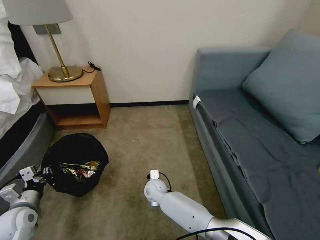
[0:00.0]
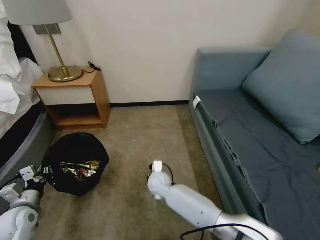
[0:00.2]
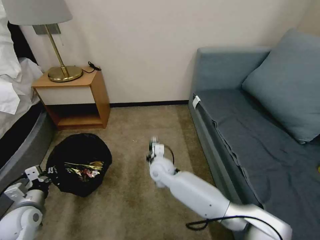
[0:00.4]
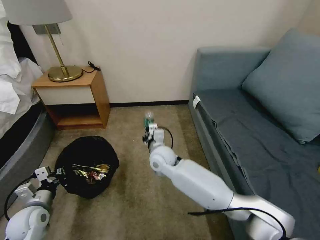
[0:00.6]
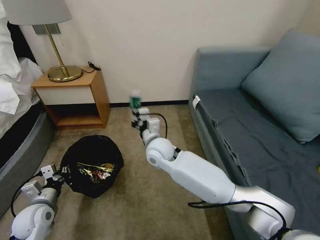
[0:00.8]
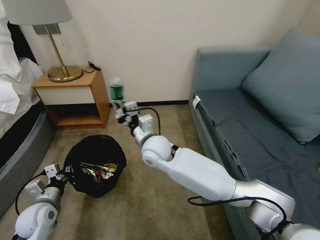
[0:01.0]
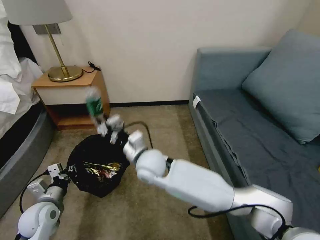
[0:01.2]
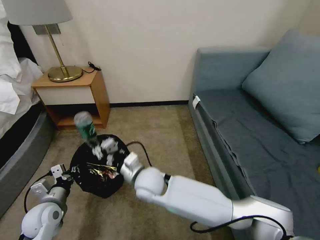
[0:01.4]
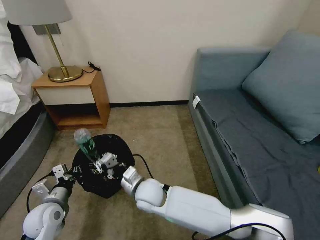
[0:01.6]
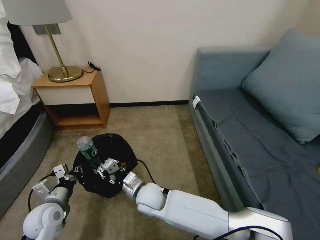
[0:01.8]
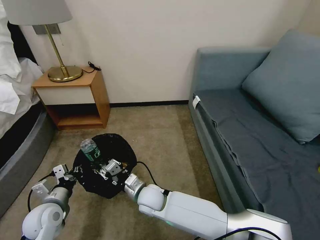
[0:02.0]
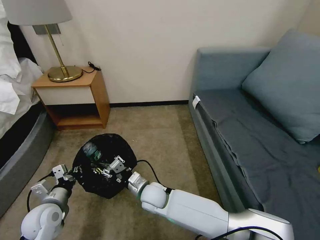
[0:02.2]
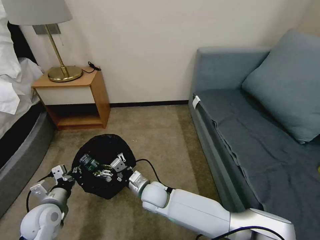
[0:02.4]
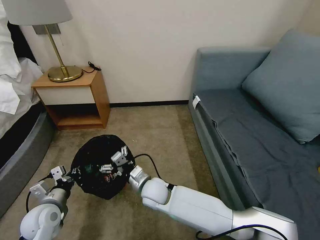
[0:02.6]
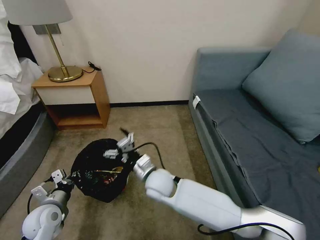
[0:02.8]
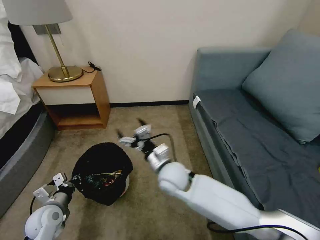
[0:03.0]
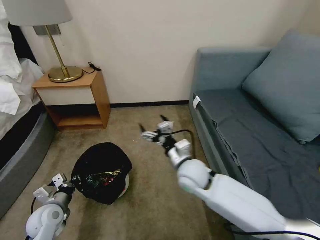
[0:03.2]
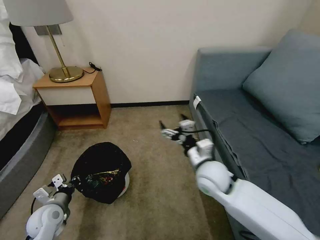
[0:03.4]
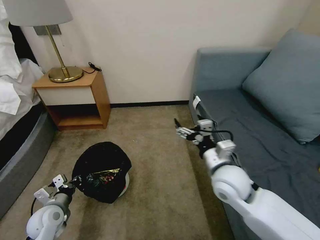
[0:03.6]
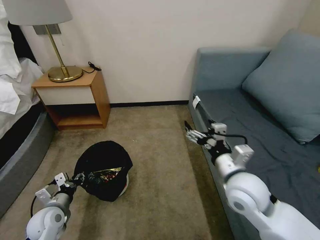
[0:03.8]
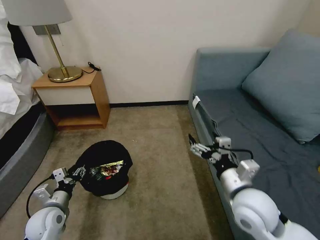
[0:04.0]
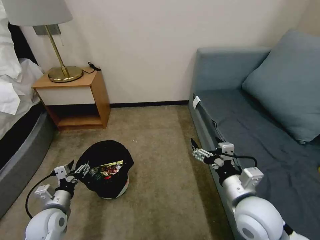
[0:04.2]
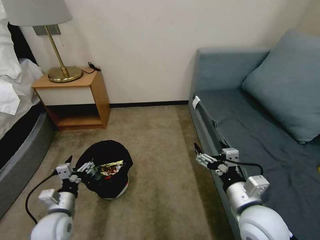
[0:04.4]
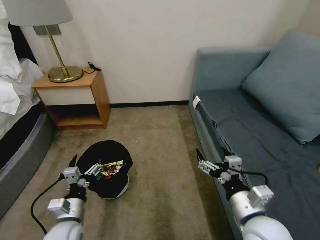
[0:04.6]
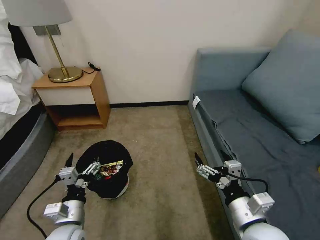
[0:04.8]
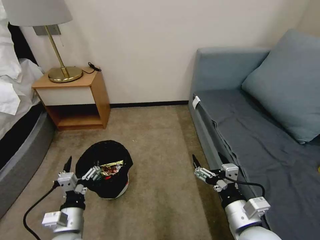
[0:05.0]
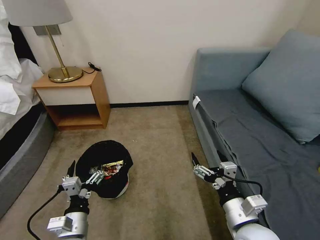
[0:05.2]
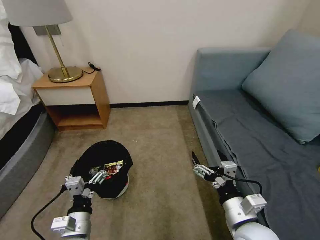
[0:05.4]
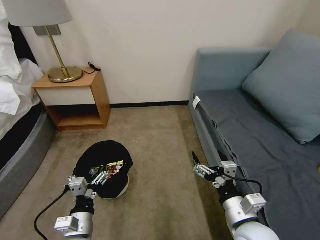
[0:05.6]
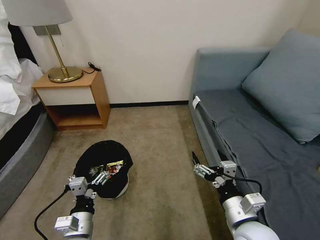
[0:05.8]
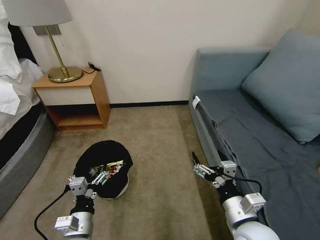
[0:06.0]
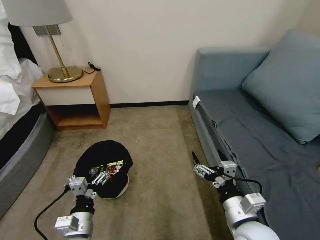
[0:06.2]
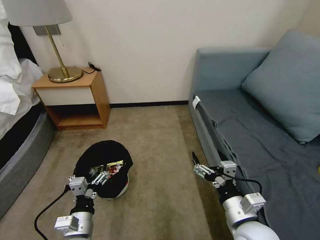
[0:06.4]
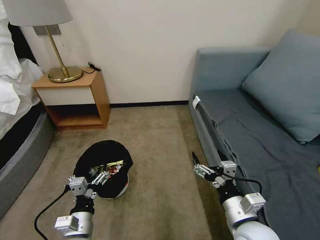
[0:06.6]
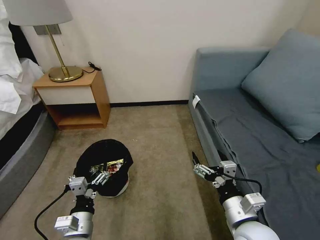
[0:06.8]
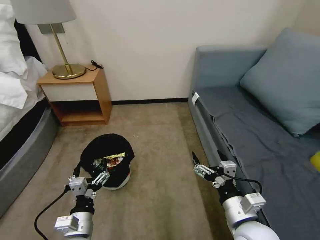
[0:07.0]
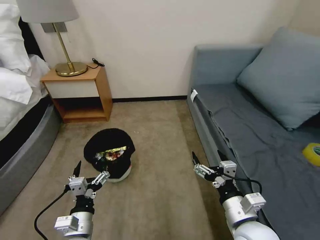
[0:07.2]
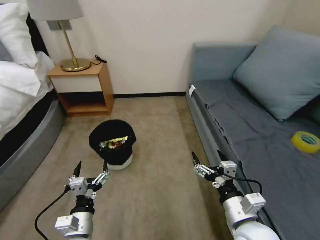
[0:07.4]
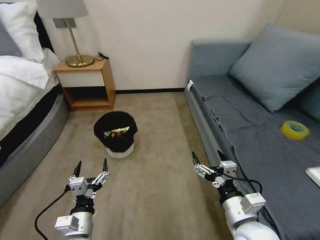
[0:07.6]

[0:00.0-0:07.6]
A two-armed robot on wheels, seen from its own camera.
Task of the whole recording: Pick up the trash bin, then pick up the garbage on the floor and place it into the trash bin.
0:00.0 to 0:01.6: The left gripper is displaced to the right by approximately 10 cm. The right gripper heads upward and backward, covering about 15 cm.
0:01.6 to 0:03.0: The right gripper heads to the right and upward, covering about 10 cm, and opens up.
0:03.0 to 0:04.6: The right gripper shifts about 25 cm to the right and backward. Meanwhile the left gripper shifts about 10 cm to the right and backward, and opens its fingers.
0:04.6 to 0:06.0: The left gripper ends up approximately 5 cm from where it was.

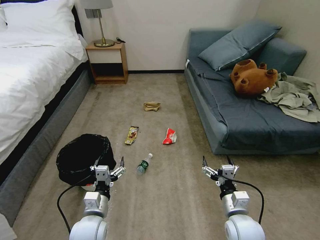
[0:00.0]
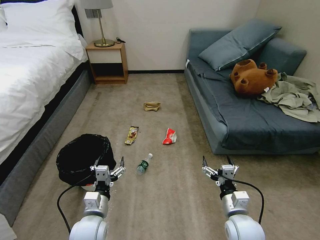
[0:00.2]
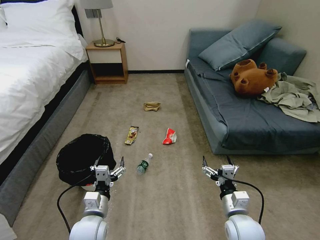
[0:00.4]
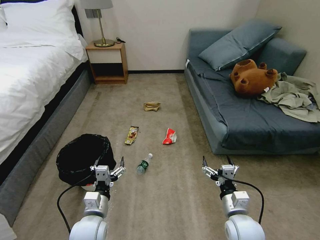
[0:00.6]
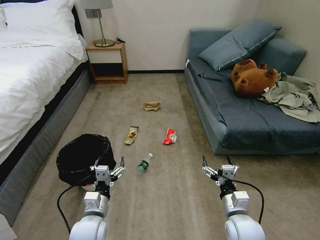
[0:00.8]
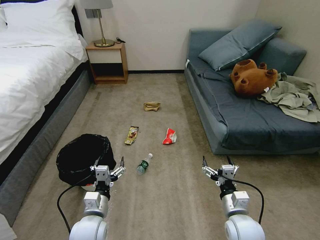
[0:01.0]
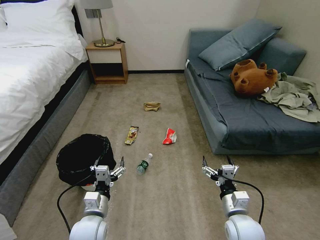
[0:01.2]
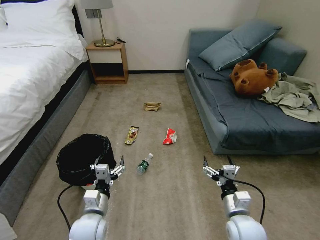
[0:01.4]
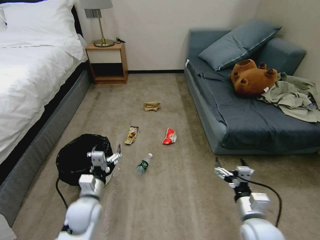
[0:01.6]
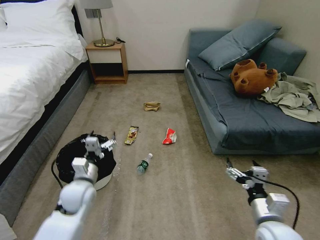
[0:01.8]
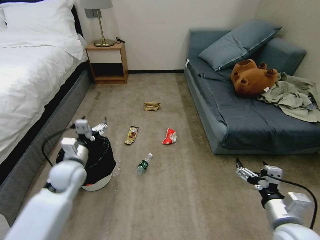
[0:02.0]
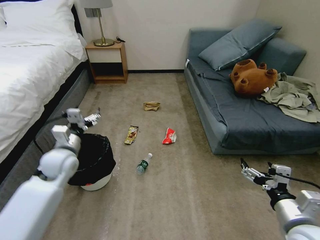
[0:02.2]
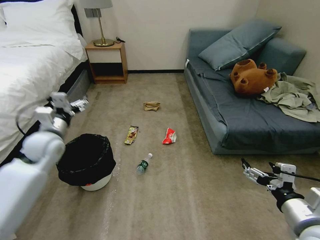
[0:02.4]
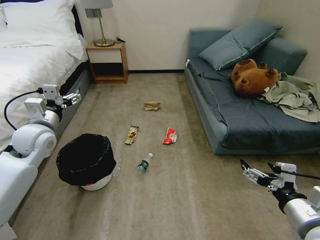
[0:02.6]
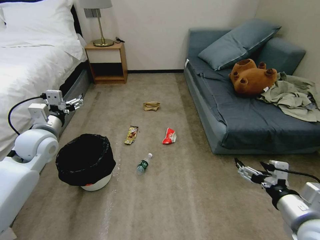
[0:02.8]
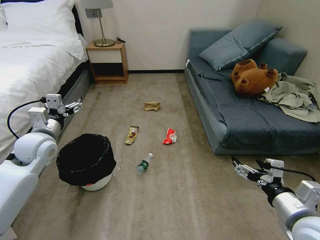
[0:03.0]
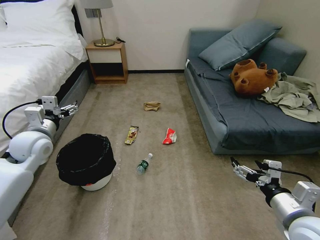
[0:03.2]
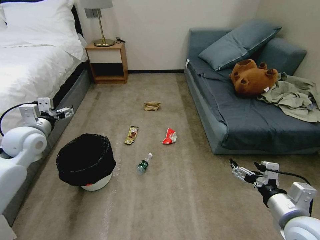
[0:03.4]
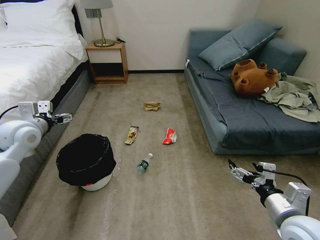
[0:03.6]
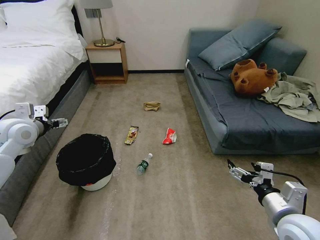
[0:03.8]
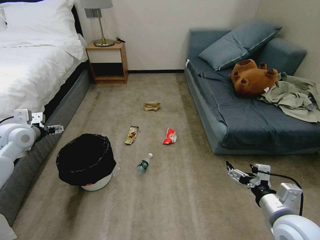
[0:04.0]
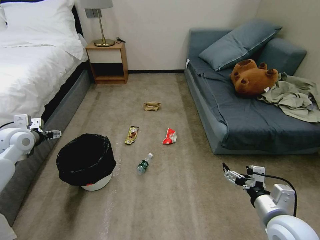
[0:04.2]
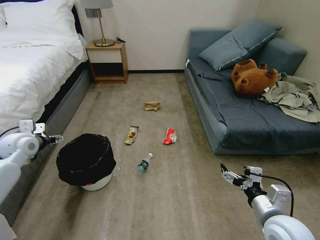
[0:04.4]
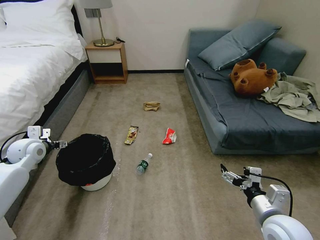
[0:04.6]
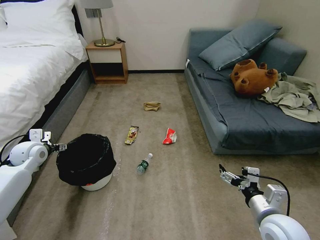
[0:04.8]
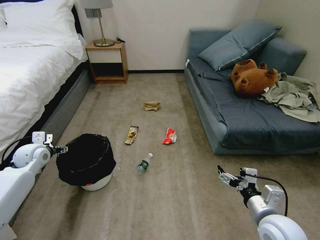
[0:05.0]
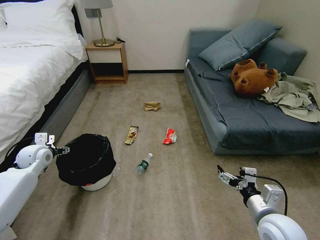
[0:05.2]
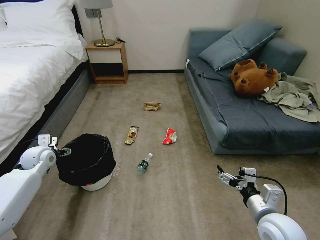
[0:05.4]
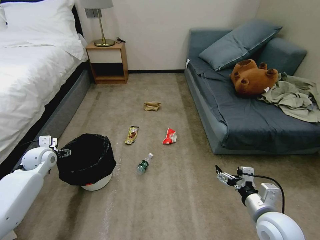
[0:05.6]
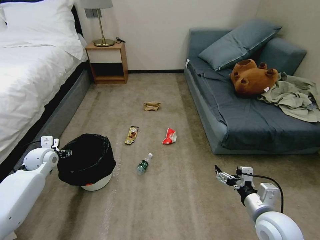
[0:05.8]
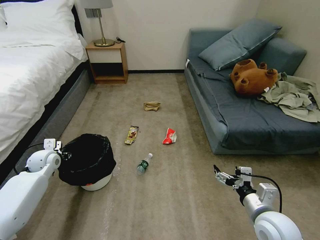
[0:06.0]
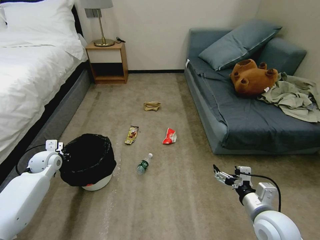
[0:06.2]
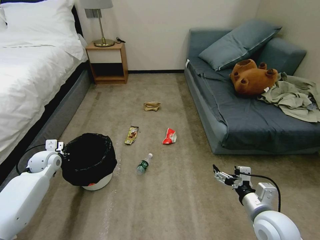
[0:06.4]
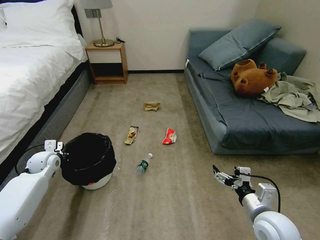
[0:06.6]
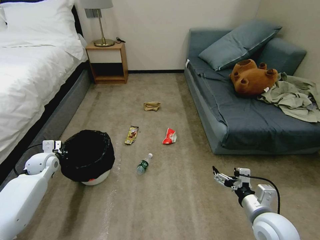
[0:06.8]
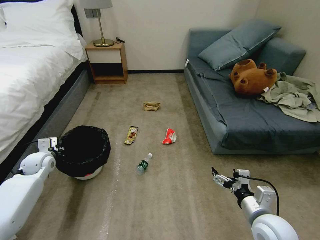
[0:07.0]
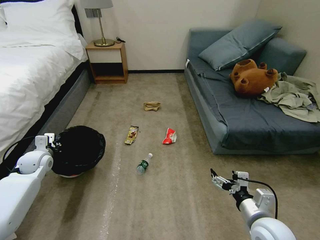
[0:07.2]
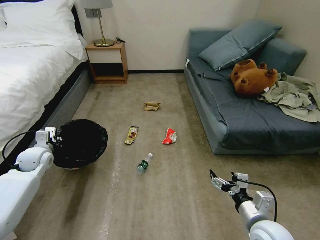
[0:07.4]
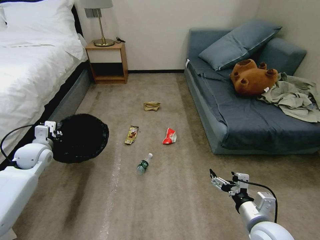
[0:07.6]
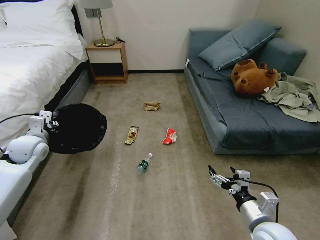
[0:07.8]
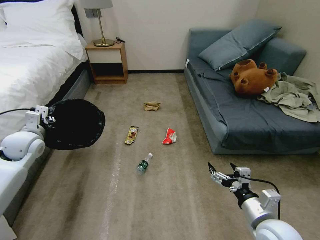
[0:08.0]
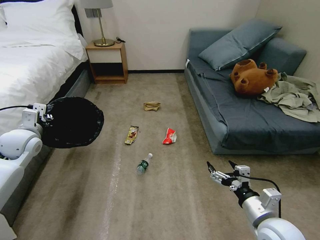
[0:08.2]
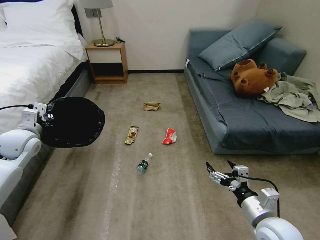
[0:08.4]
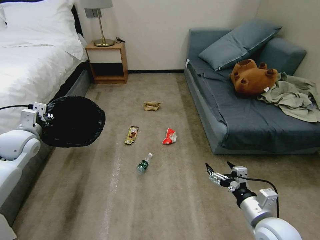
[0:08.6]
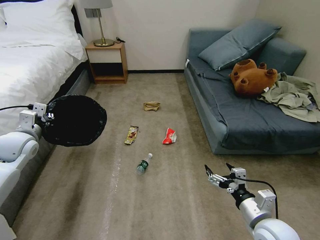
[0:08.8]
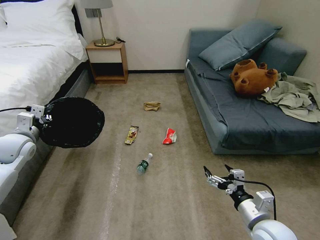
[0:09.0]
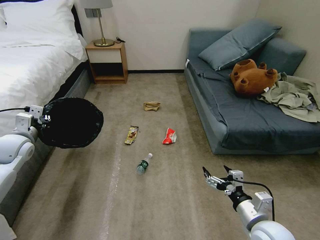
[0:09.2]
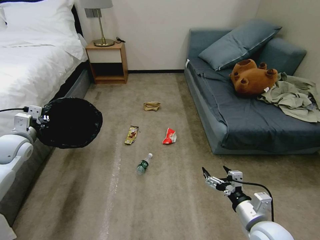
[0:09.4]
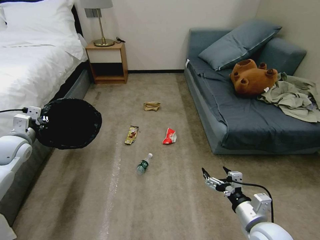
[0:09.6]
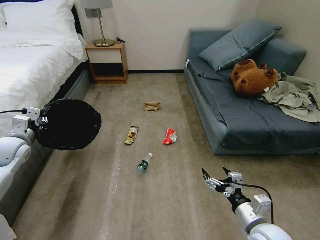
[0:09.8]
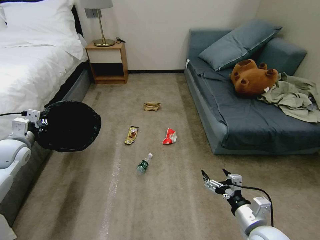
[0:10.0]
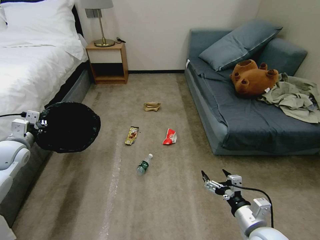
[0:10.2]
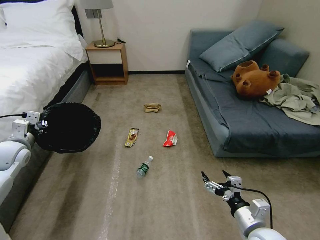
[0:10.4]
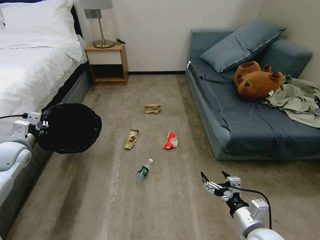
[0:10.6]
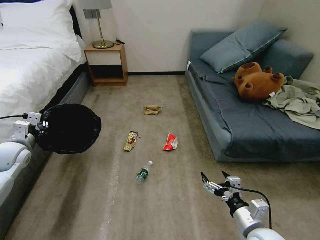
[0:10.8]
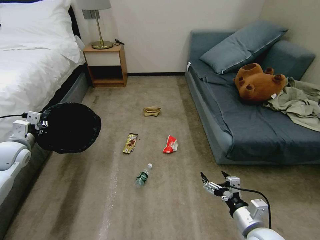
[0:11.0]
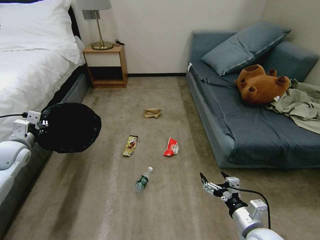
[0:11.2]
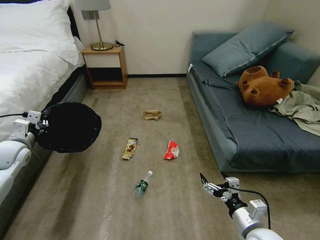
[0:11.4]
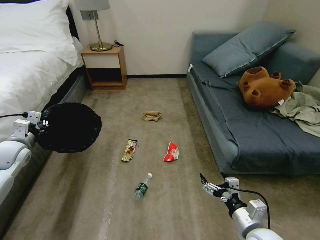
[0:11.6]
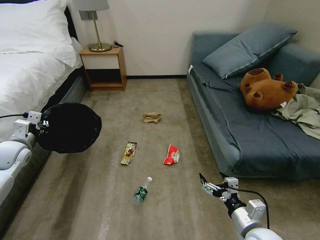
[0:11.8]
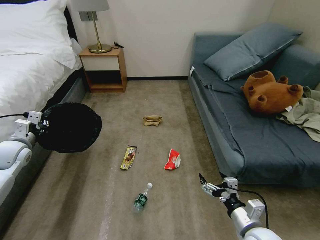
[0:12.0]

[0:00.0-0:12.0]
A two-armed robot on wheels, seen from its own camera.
Task of the whole recording: Pick up the trash bin, then pick up the garbage on the floor and place it into the trash bin.
0:01.6 to 0:03.0: The left gripper shifts roughly 25 cm upward, to the left and forward; the right gripper is displaced upward and to the right by roughly 15 cm.
0:03.0 to 0:04.4: The right gripper travels downward by about 5 cm, while the left gripper shifts approximately 10 cm to the left.
0:04.4 to 0:06.0: The left gripper travels downward by approximately 10 cm, and closes up.
0:06.0 to 0:07.6: The left gripper travels upward by about 5 cm, and closes up.
0:07.6 to 0:09.0: The left gripper shifts about 5 cm upward.
0:09.0 to 0:10.4: The grippers make only small movements.

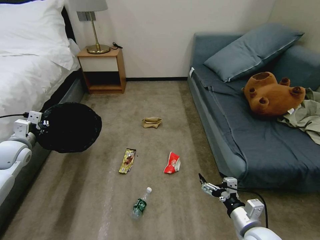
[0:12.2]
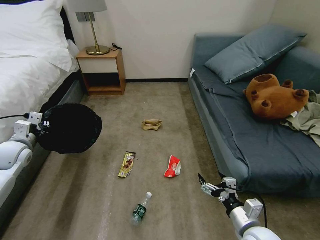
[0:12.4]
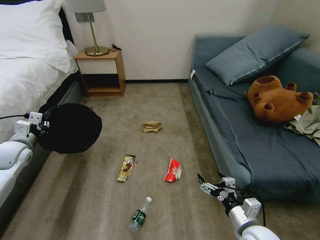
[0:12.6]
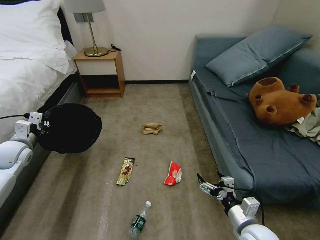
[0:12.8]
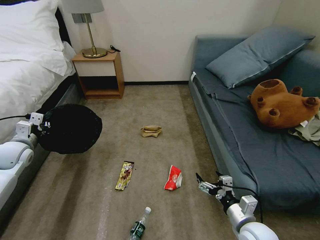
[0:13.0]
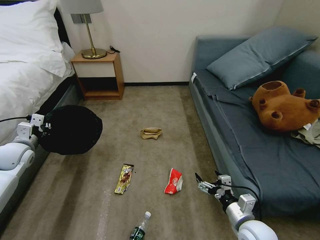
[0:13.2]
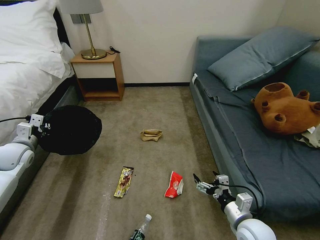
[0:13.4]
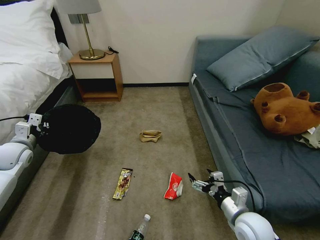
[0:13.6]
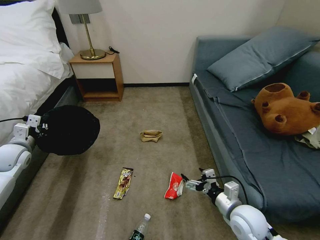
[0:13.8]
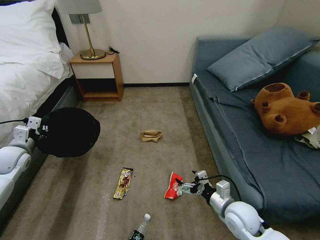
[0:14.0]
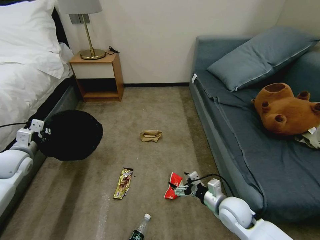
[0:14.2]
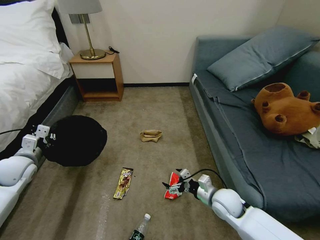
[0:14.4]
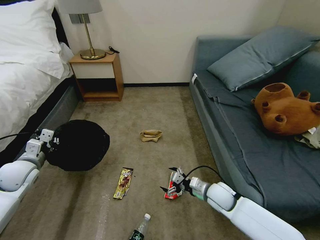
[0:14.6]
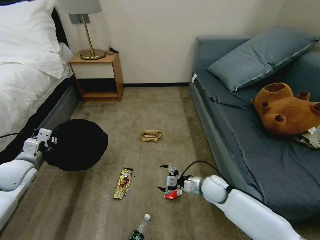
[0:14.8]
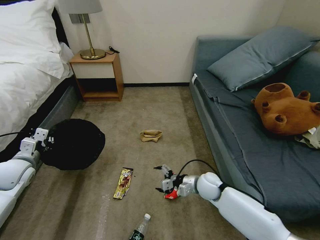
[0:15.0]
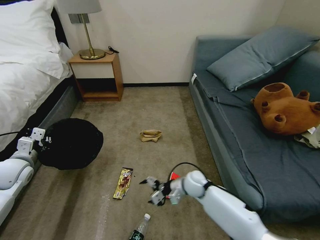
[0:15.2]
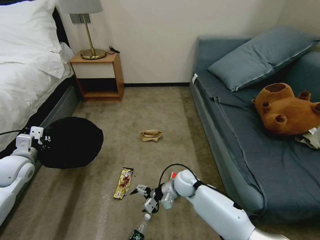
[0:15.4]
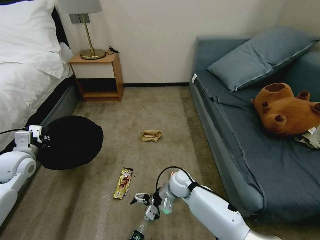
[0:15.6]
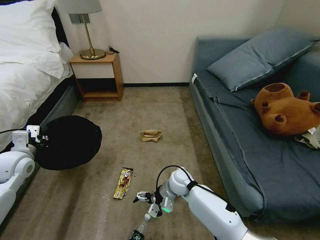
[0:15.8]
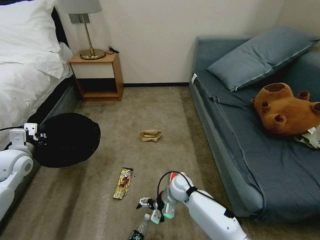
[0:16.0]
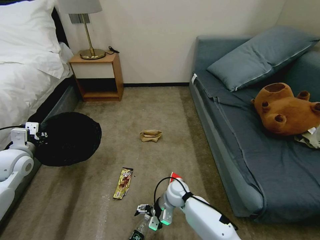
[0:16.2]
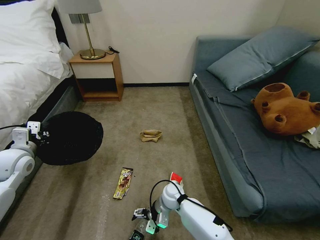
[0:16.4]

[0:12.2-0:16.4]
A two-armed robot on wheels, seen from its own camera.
Task of the whole recording: Pick up the trash bin, then pick up the garbage on the floor and place it into the trash bin.
0:13.6 to 0:15.0: The left gripper heads backward, covering roughly 5 cm. The right gripper travels forward and to the left by about 20 cm.
0:15.0 to 0:16.4: The right gripper travels to the left by about 15 cm.
